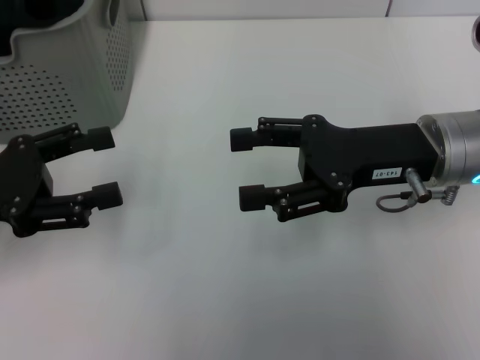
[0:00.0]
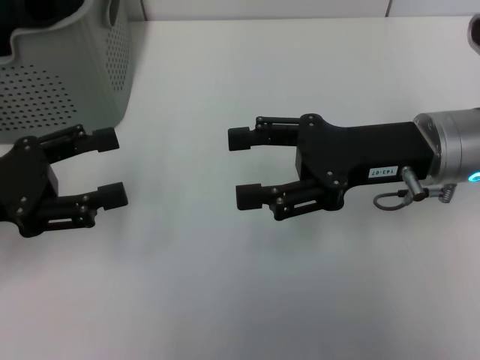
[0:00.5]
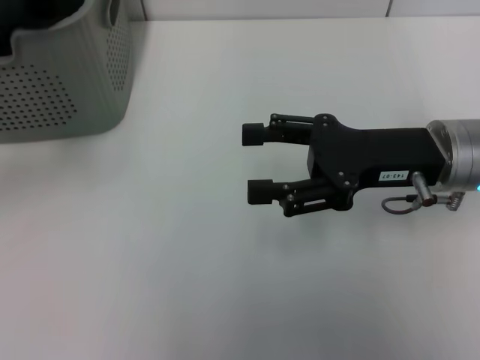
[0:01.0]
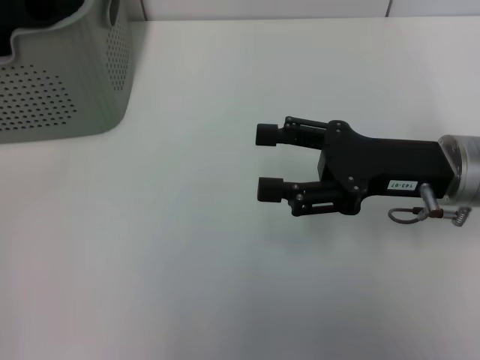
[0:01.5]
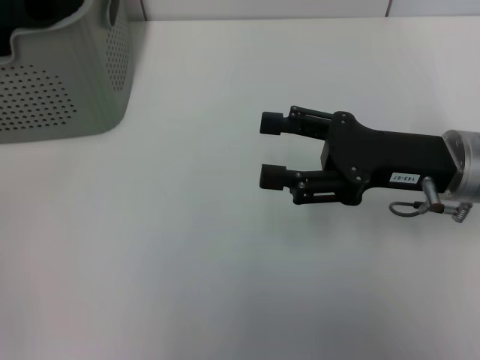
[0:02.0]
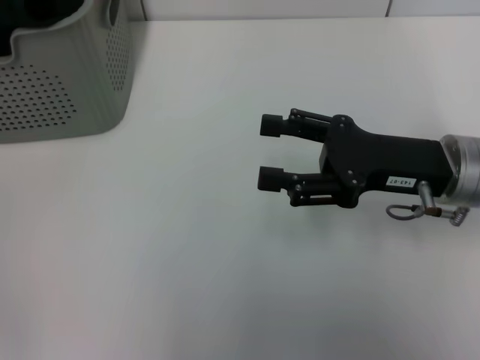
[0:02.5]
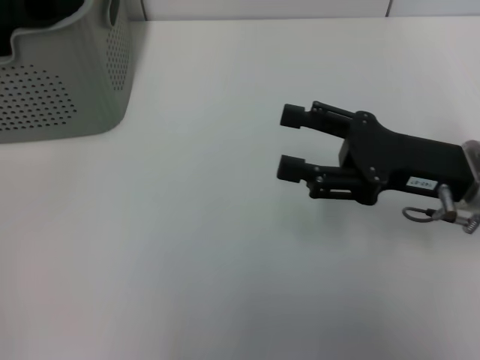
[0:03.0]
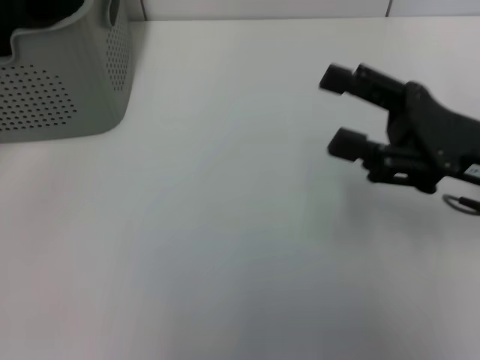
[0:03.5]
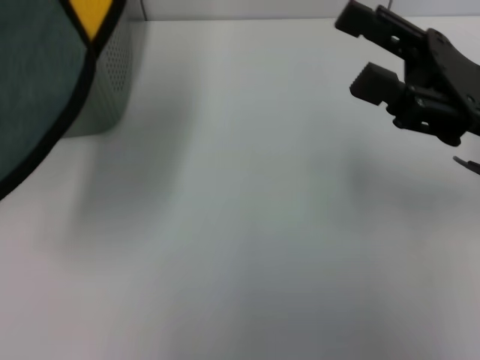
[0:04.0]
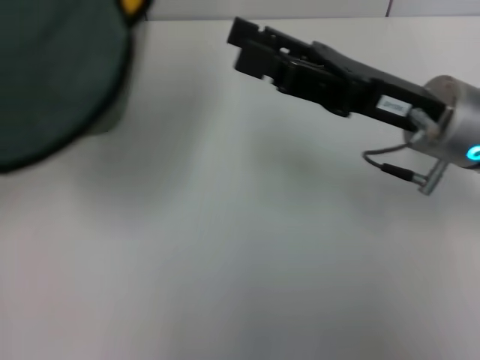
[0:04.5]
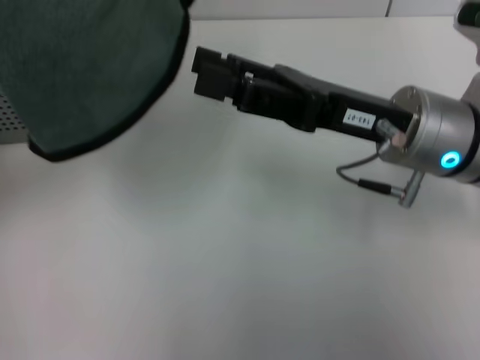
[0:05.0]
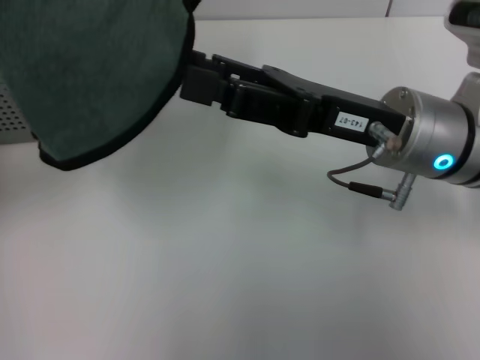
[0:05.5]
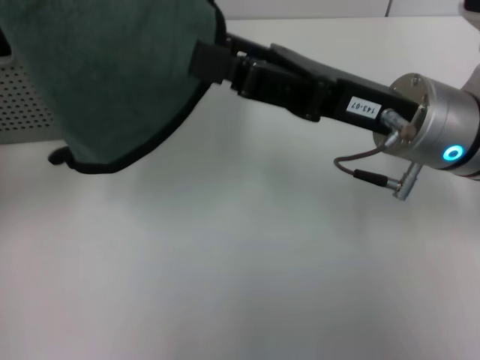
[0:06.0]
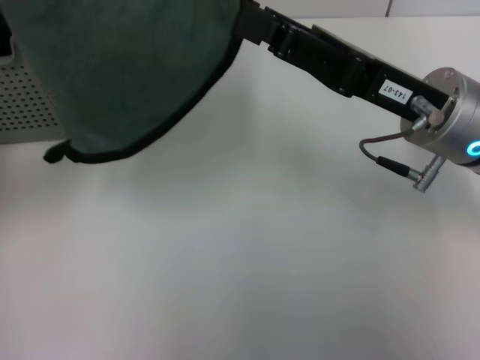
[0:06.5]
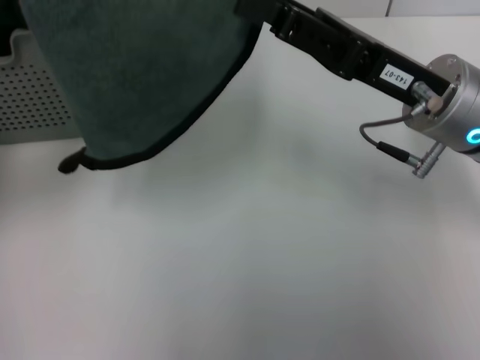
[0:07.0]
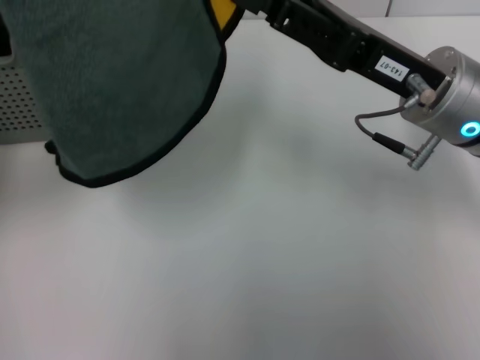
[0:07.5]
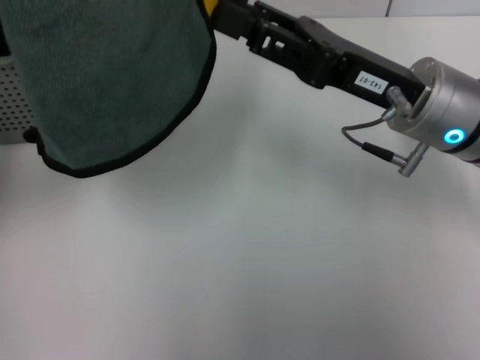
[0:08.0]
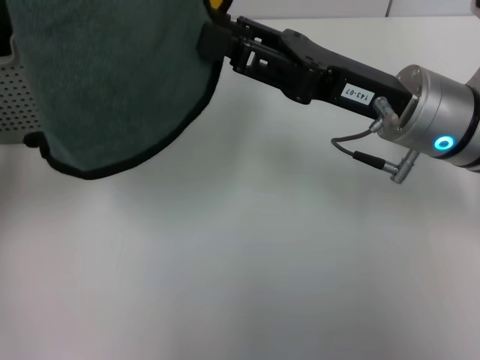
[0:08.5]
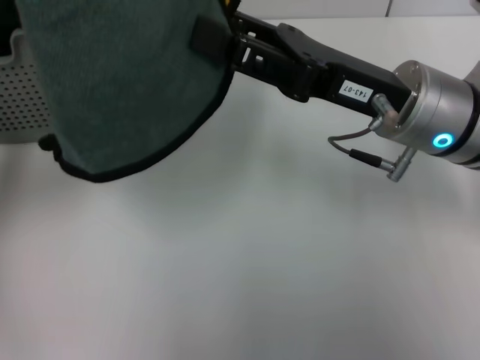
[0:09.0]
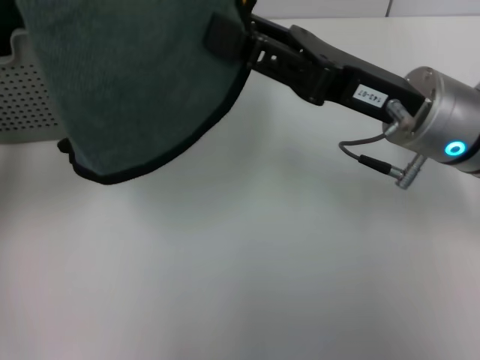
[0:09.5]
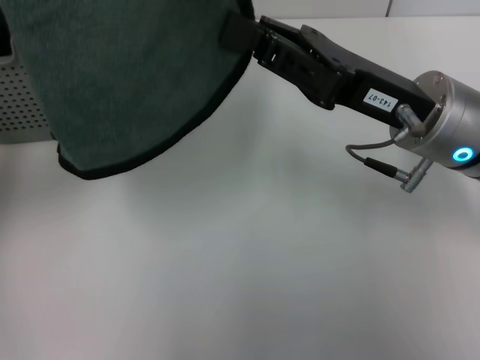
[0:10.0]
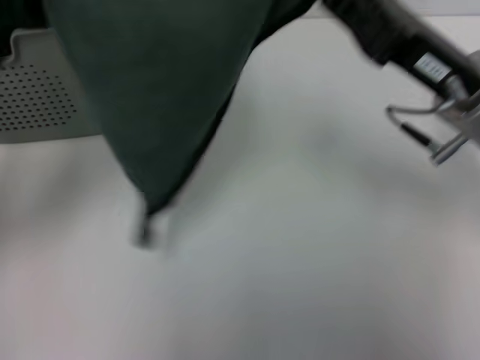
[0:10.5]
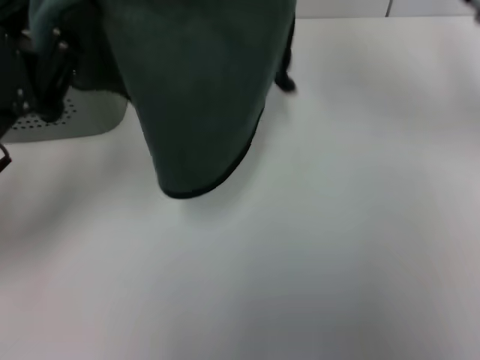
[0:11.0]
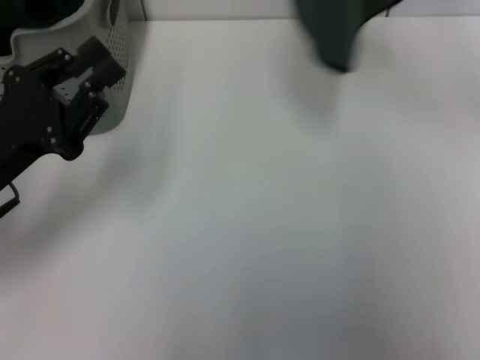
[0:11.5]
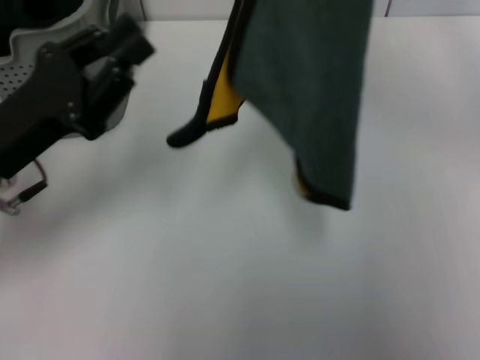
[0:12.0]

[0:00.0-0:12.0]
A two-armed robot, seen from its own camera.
Task of the whole recording: pick up the towel from the storage box and lay it flat on the table.
Step, 0:00.0 to 0:02.5: Pick up a towel with the left gripper.
Step, 0:03.5 to 0:10.0: Spread the towel flat with the left gripper.
0:00.0 to 0:02.0: The left gripper goes approximately 15 cm forward and upward.
0:02.0 to 0:04.0: The left gripper heads backward, covering roughly 15 cm, and closes up.
0:04.0 to 0:06.0: The left gripper shifts approximately 10 cm to the right. The right gripper moves to the left, roughly 10 cm.
0:06.0 to 0:08.0: The right gripper closes up.
0:08.0 to 0:10.0: There are only small adjustments of the grippers.
0:10.0 to 0:12.0: The left gripper heads downward, covering some 10 cm, while the right gripper goes approximately 15 cm upward and to the right.

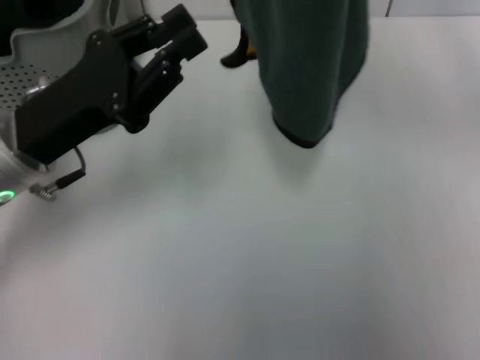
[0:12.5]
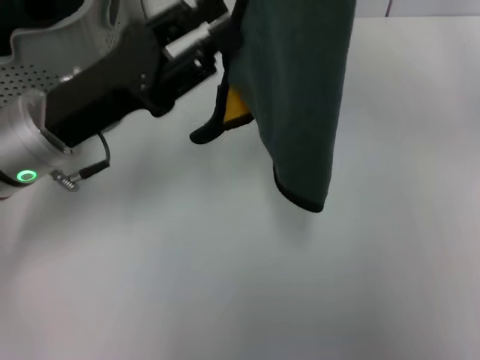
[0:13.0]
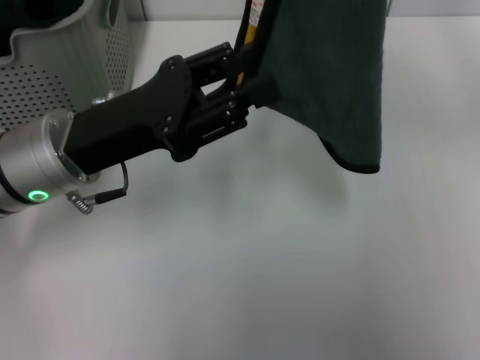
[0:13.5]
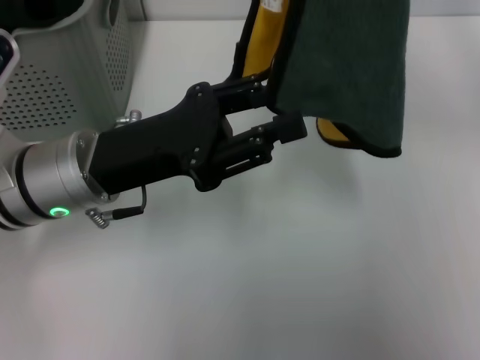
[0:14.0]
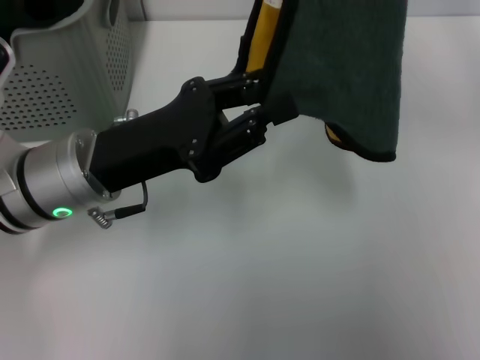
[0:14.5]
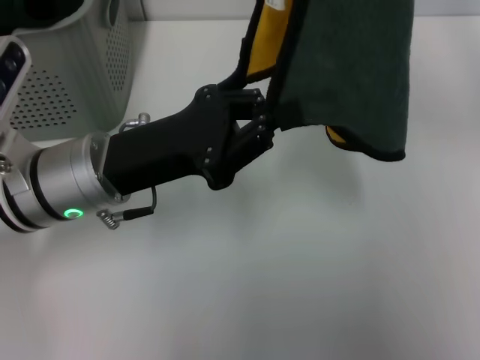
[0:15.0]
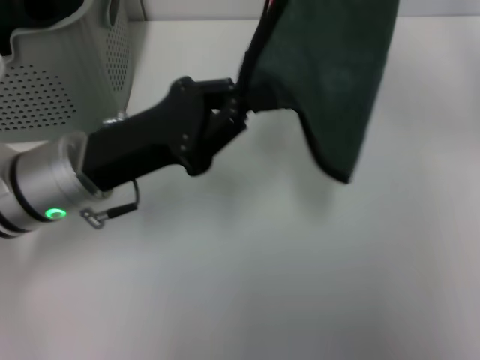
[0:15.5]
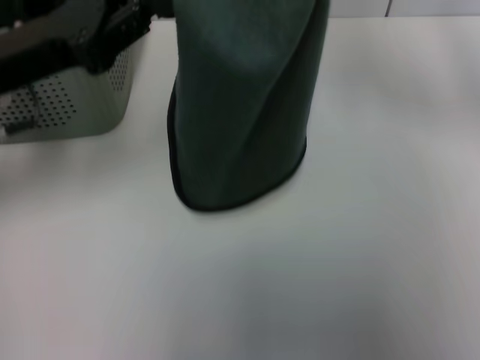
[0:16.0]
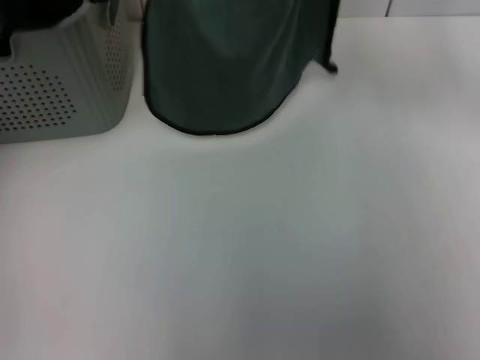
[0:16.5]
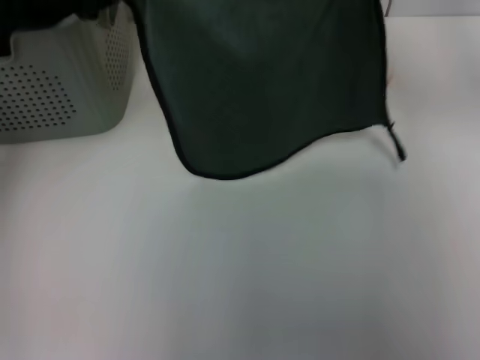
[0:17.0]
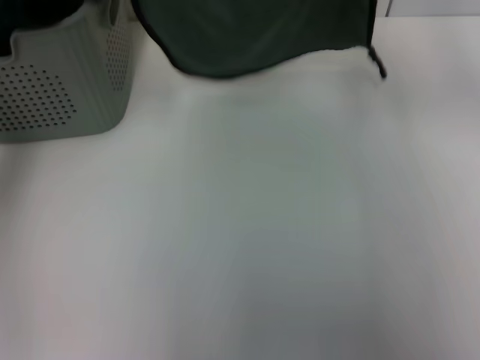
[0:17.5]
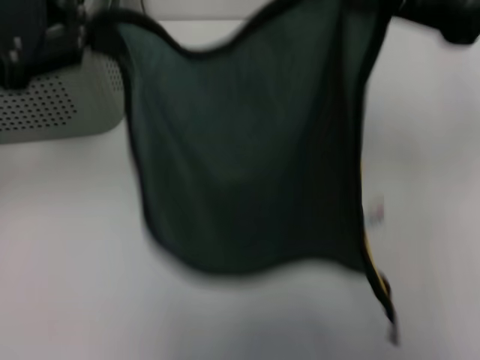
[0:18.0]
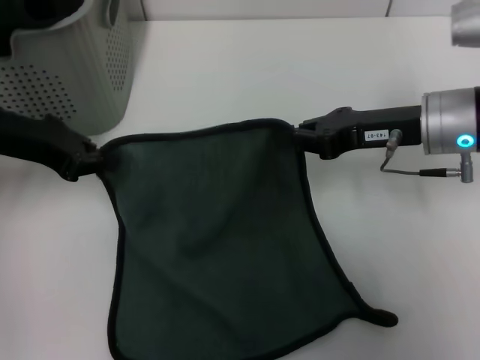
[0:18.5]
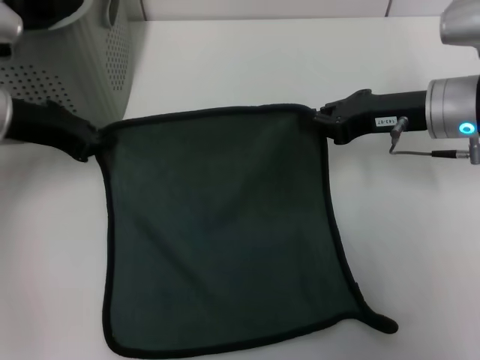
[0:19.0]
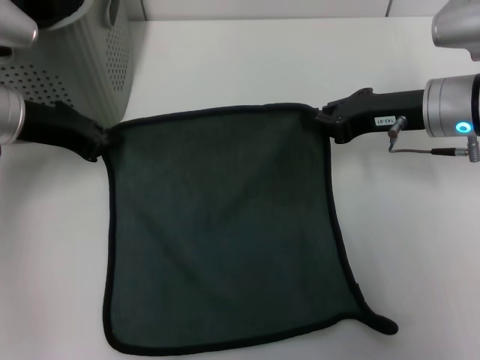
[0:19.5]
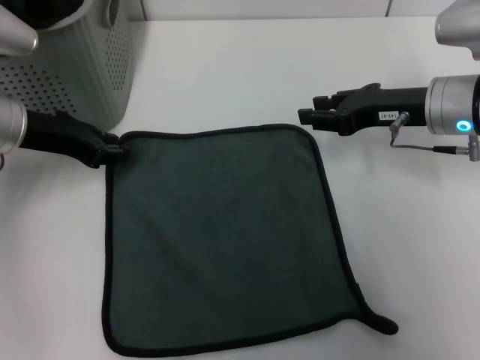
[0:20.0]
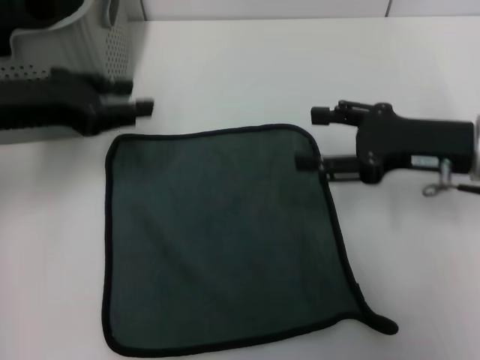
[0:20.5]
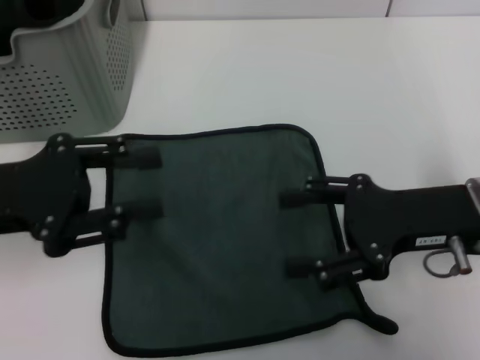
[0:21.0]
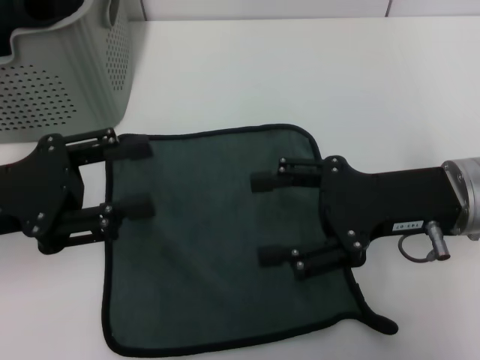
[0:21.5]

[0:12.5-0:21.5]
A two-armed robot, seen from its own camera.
Task of the whole recording: pick up the towel from the storage box and lay it flat on the table.
Step, 0:12.5 to 0:20.0: Spread the towel flat with the right gripper.
0:14.5 to 0:17.0: The left gripper moves upward, to the left and forward, approximately 20 cm.
0:17.0 to 0:19.5: The right gripper shifts approximately 15 cm downward and to the left; the left gripper goes some 15 cm downward.
0:19.5 to 0:21.5: The grippers both shift backward by roughly 10 cm. The left gripper opens up, while the right gripper opens its fingers.
